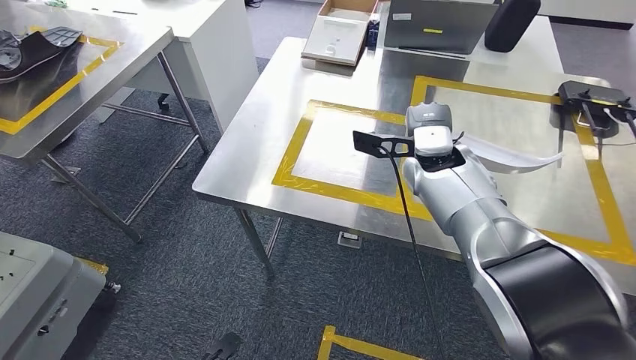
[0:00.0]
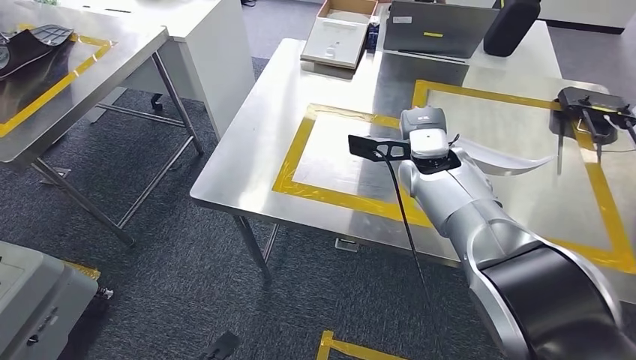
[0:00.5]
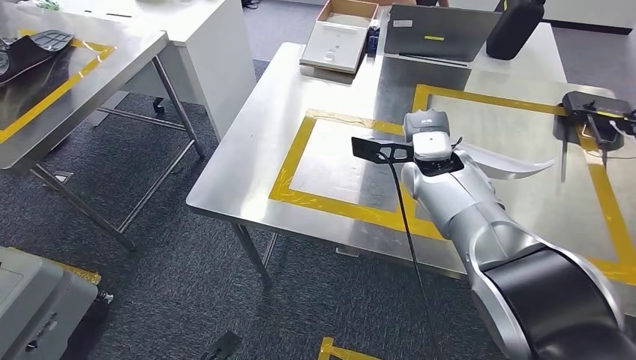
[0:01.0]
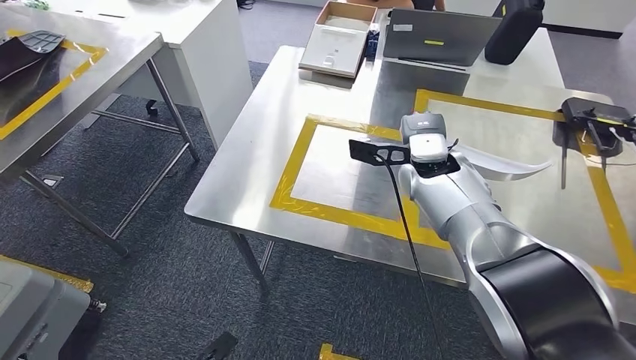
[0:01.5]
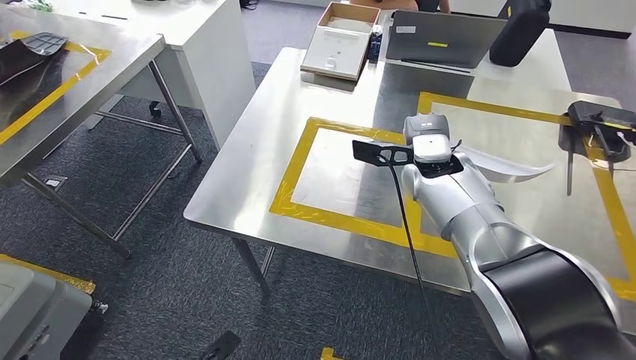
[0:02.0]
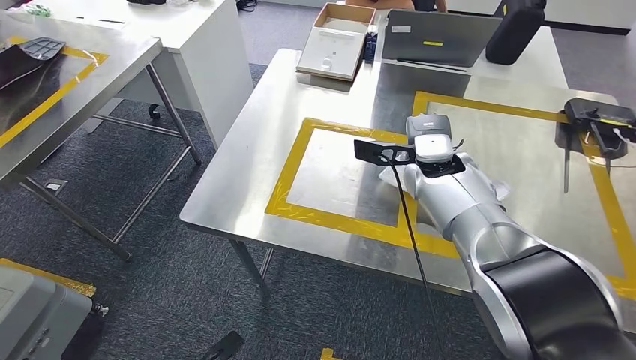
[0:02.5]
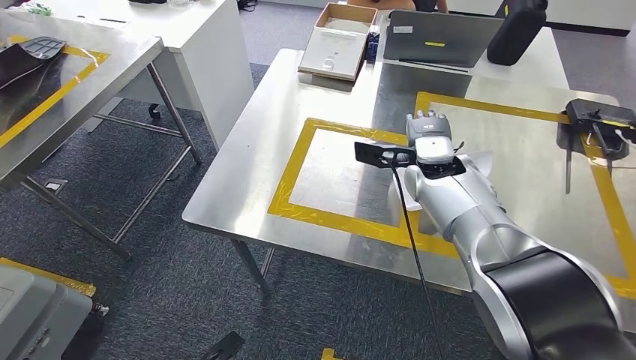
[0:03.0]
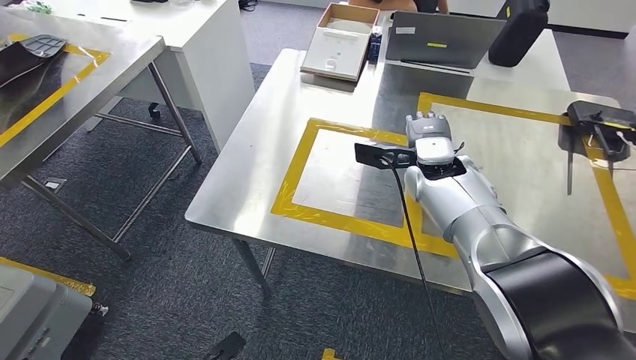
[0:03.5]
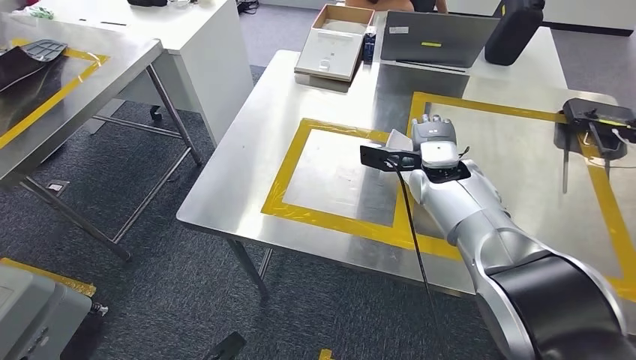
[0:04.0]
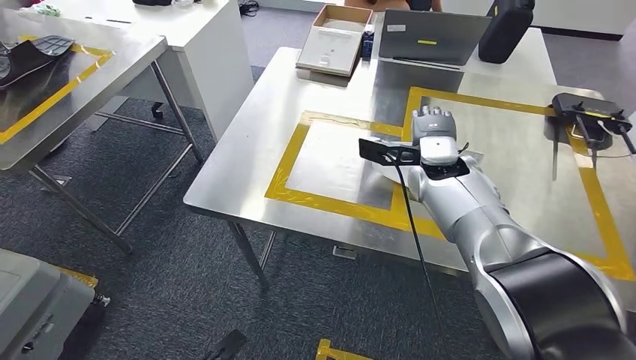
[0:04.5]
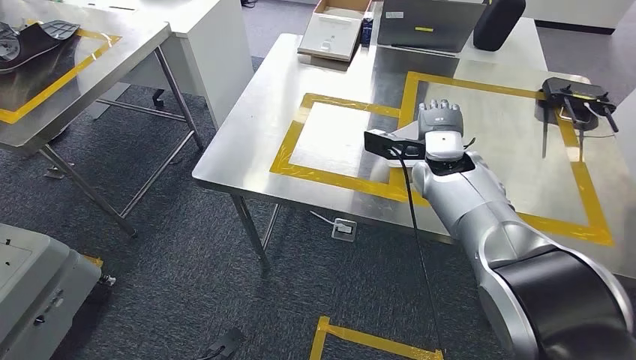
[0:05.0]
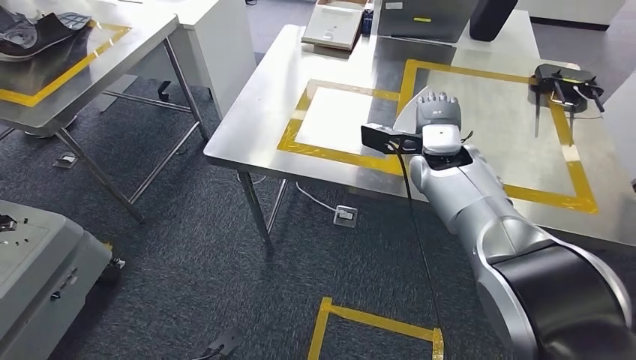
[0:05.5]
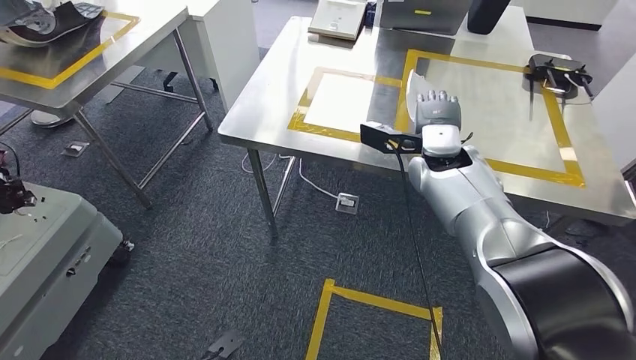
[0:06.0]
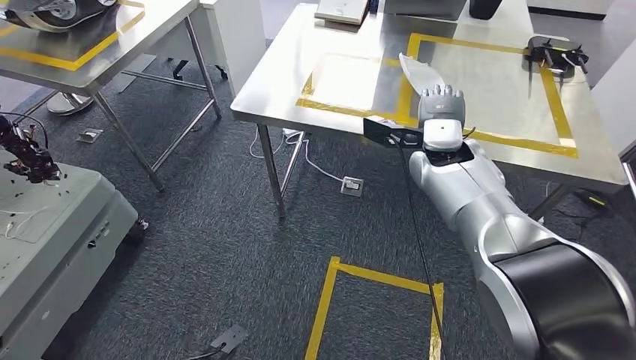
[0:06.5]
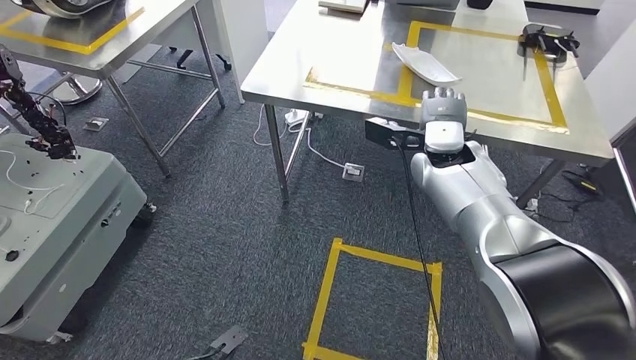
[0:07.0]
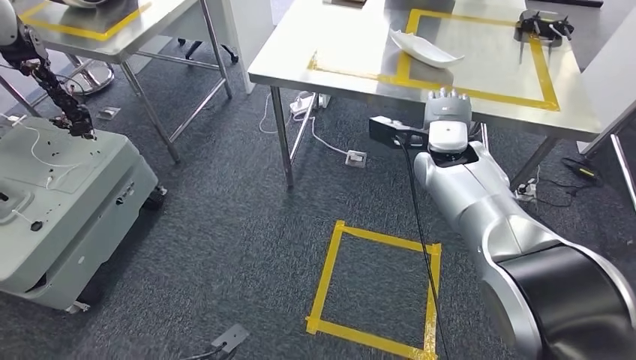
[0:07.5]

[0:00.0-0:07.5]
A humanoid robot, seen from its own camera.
Step, 0:00.0 to 0:05.0: Insert the small component into the corresponding slot on the workbench.
Step, 0:06.0 to 0:07.5: Return to the initial position at the workbench.
0:02.0 to 0:04.0: There are only small adjustments of the hands.
